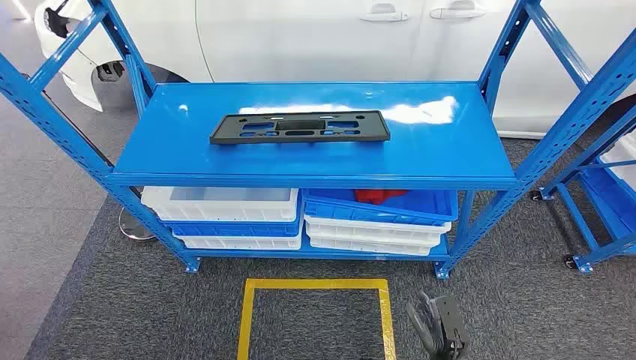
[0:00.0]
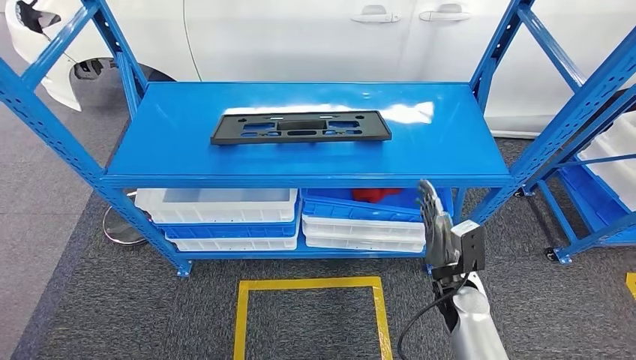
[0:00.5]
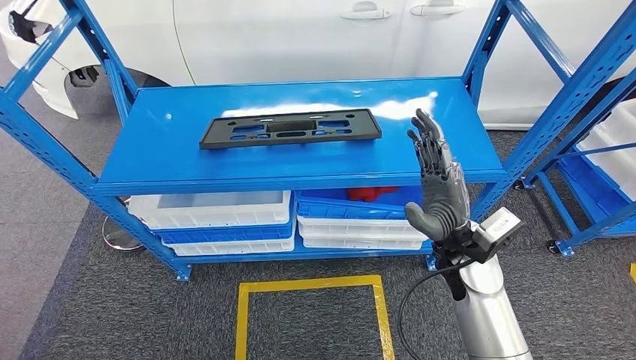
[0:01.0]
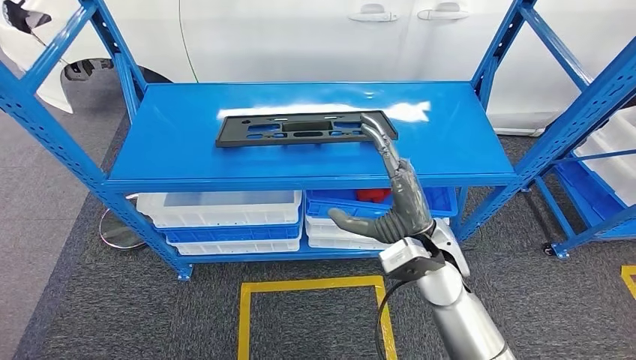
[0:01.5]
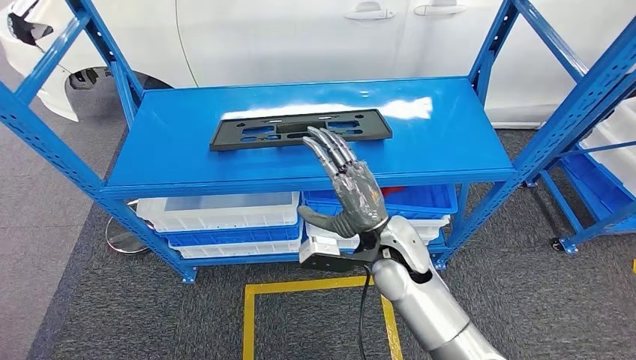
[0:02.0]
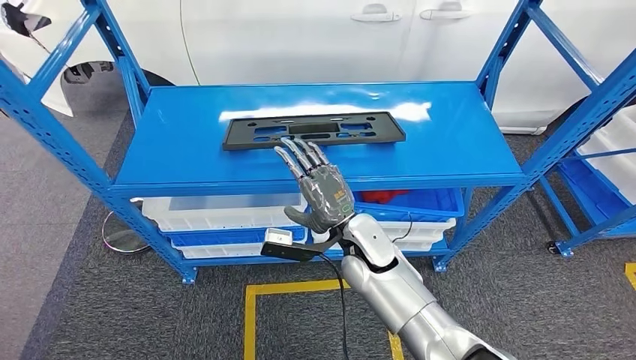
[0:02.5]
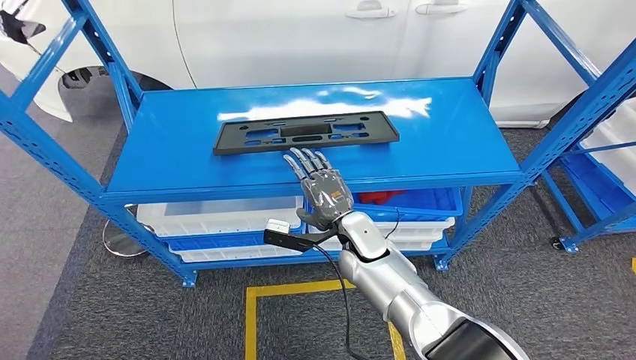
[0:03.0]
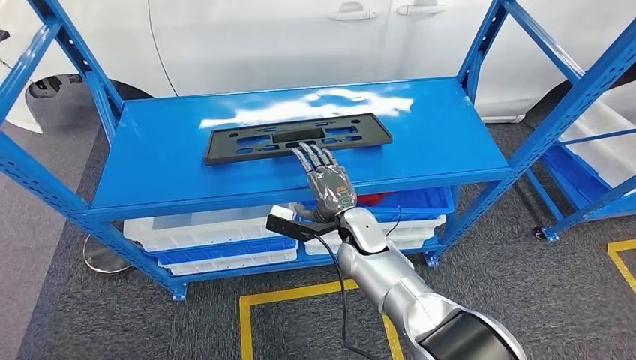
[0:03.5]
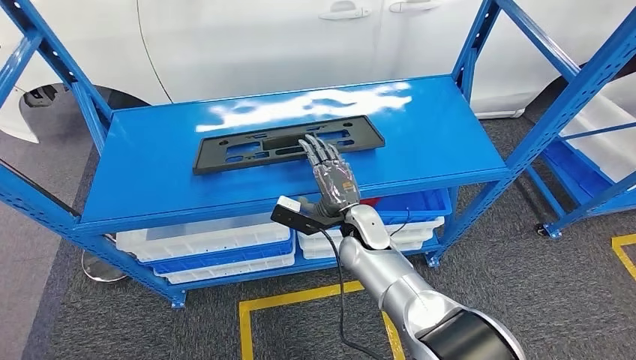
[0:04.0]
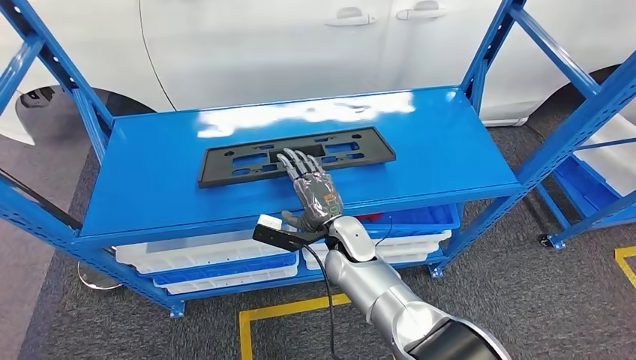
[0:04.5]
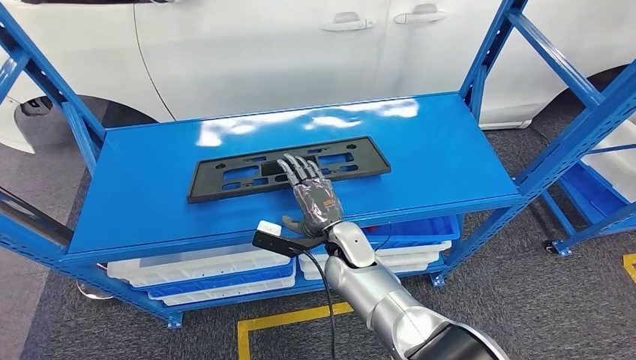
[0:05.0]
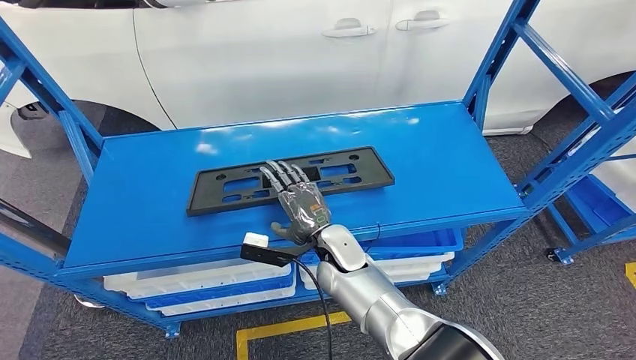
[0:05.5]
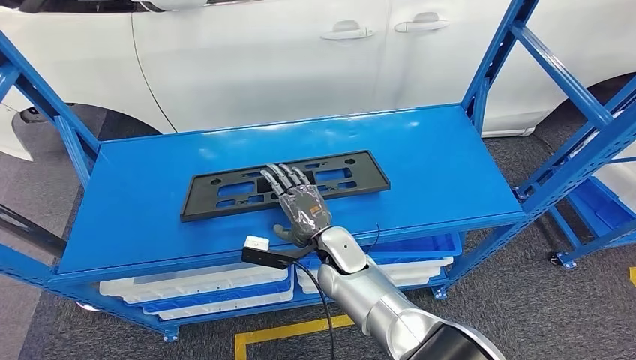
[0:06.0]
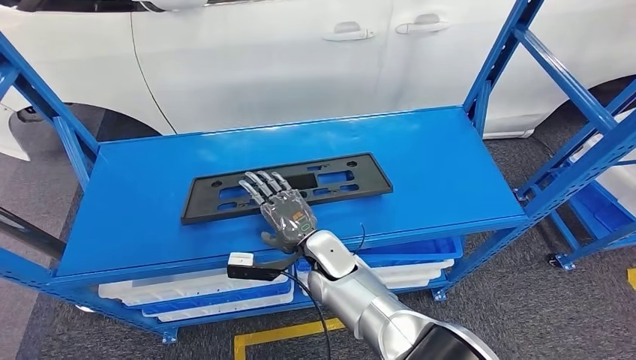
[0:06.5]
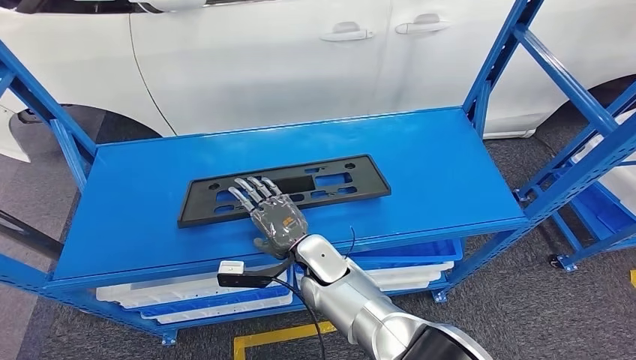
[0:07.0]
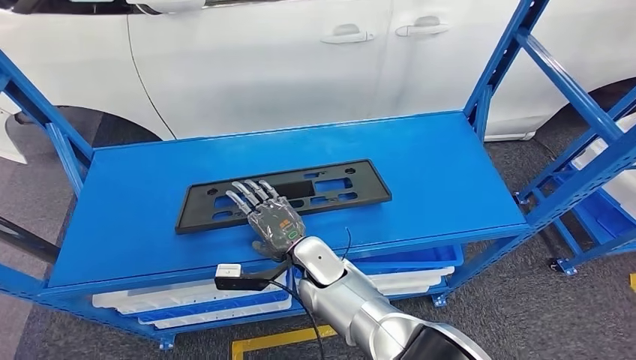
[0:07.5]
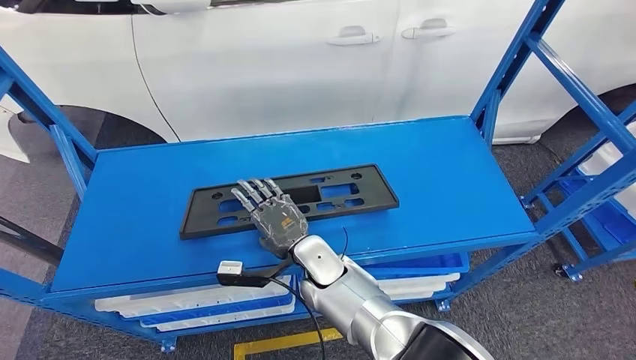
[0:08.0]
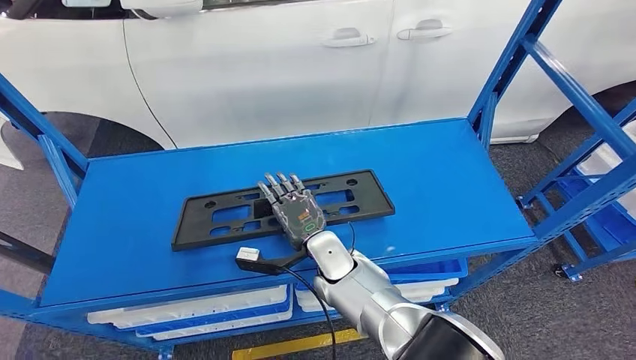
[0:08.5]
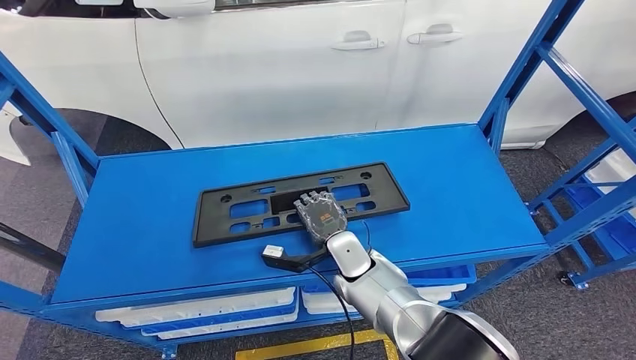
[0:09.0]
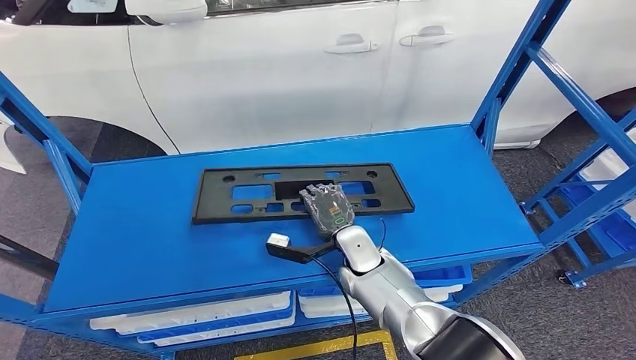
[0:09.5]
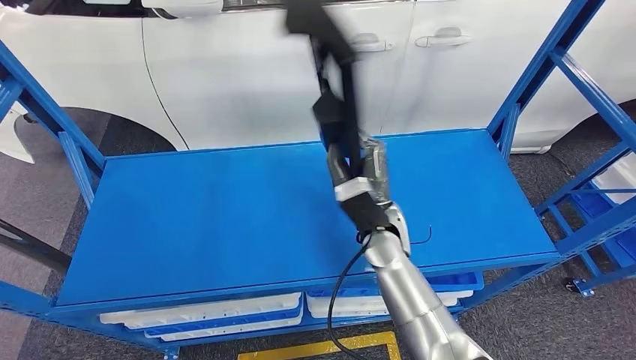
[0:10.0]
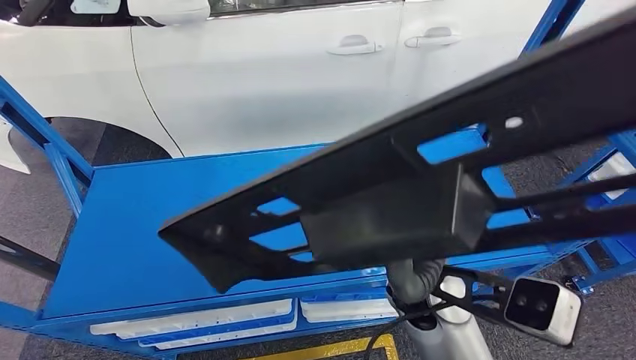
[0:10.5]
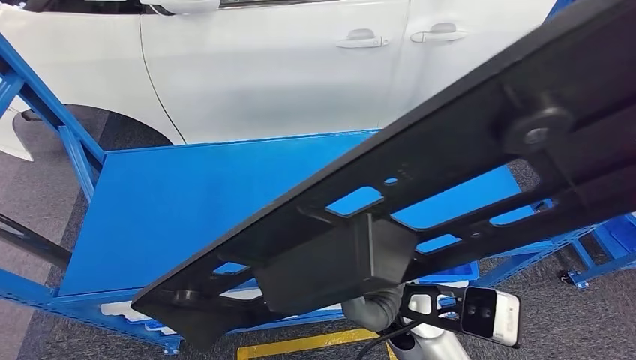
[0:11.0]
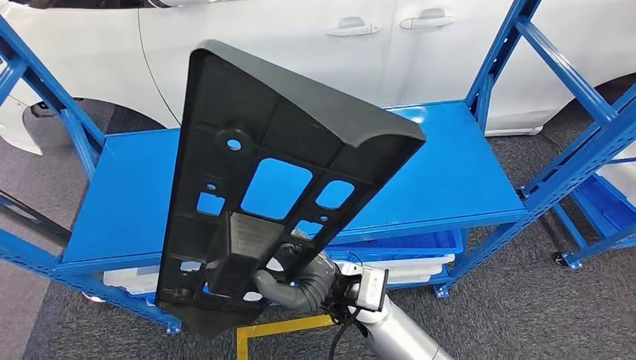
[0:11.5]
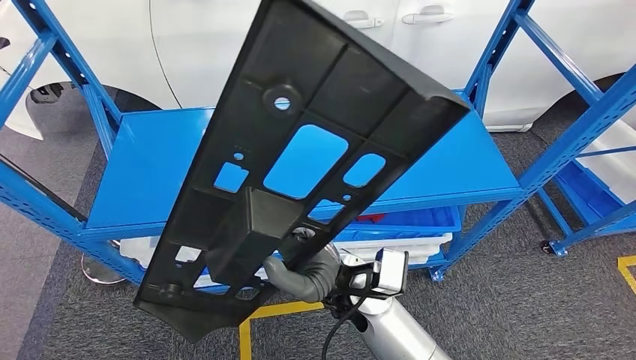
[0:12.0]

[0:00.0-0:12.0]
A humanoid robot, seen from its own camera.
Step, 0:00.0 to 0:11.0: Pick up the small parts from the shelf.

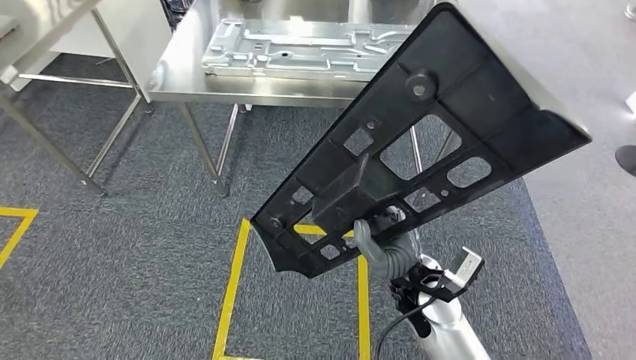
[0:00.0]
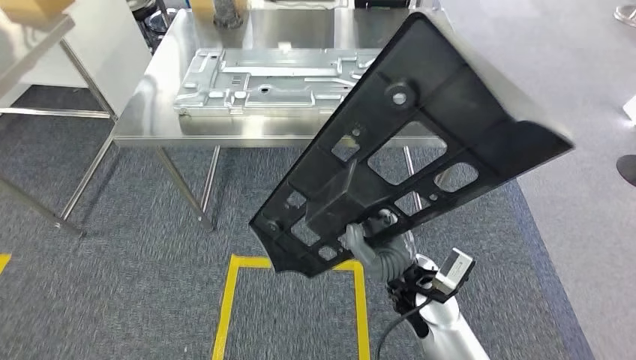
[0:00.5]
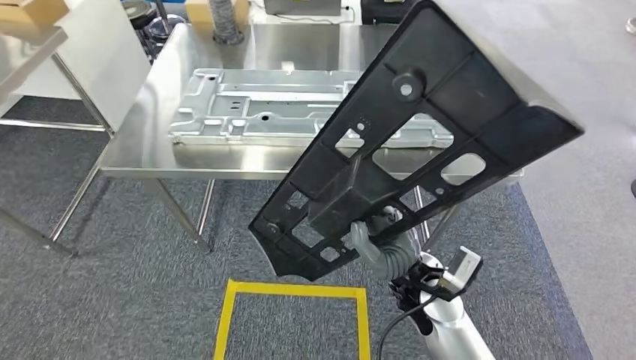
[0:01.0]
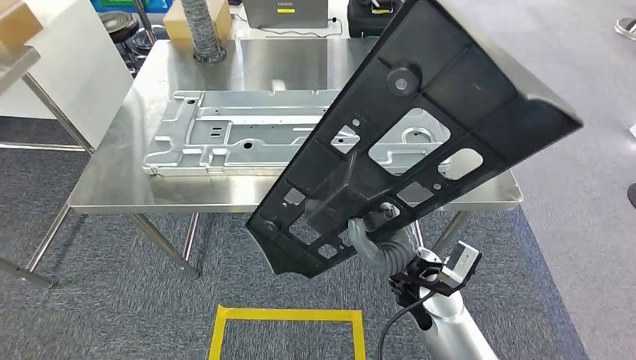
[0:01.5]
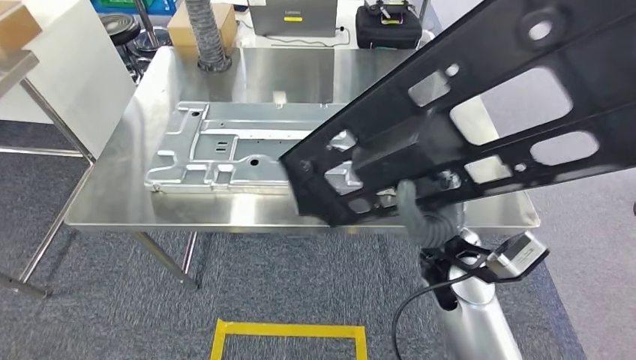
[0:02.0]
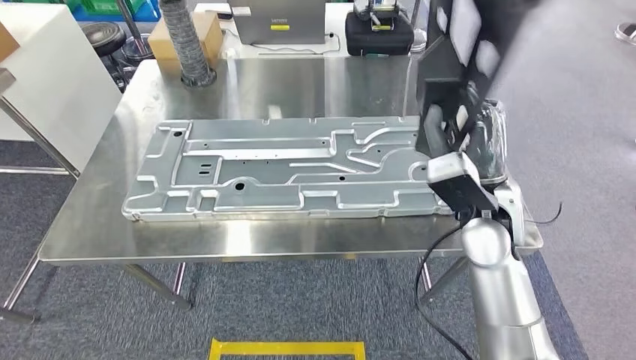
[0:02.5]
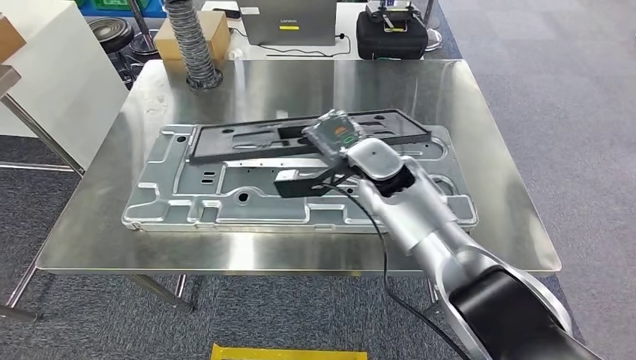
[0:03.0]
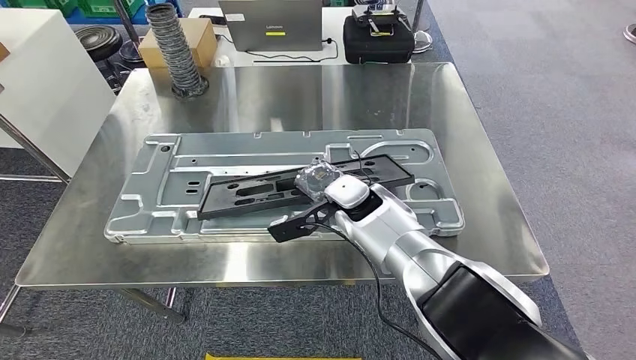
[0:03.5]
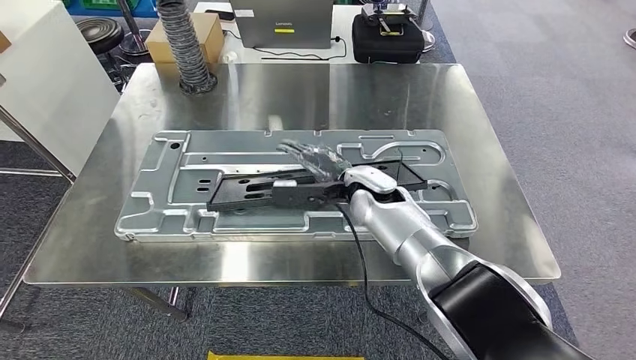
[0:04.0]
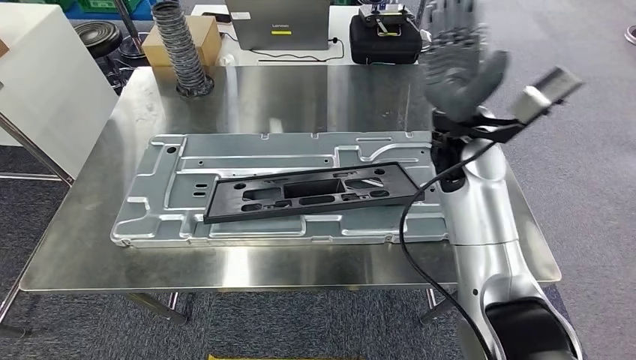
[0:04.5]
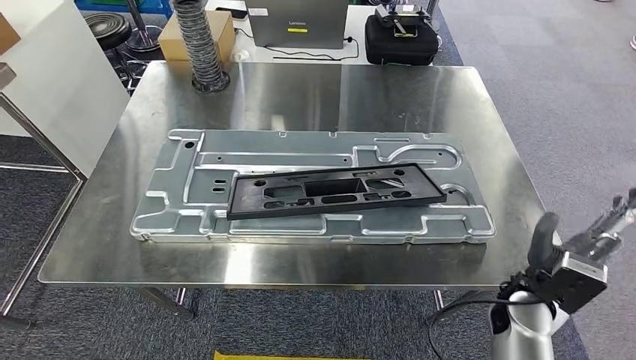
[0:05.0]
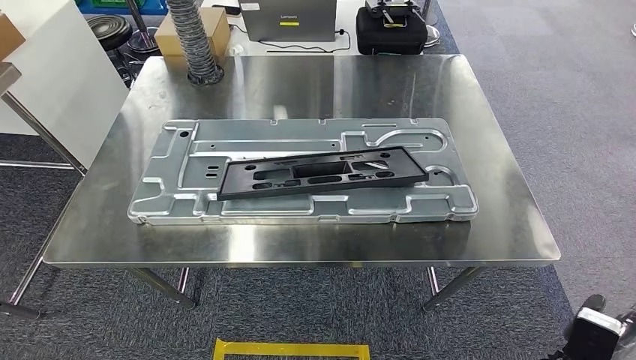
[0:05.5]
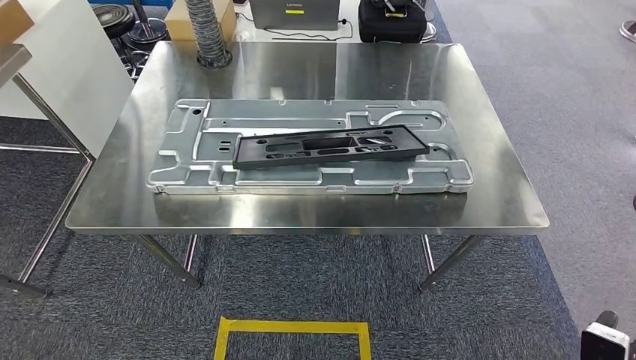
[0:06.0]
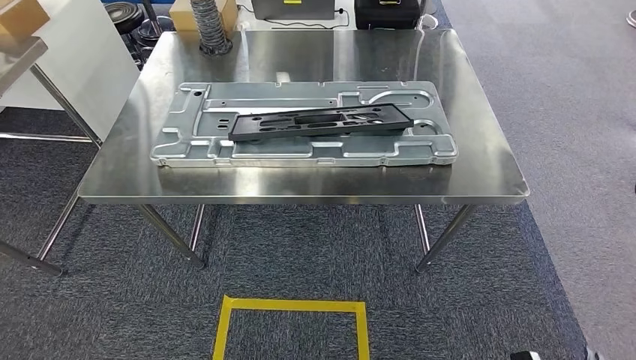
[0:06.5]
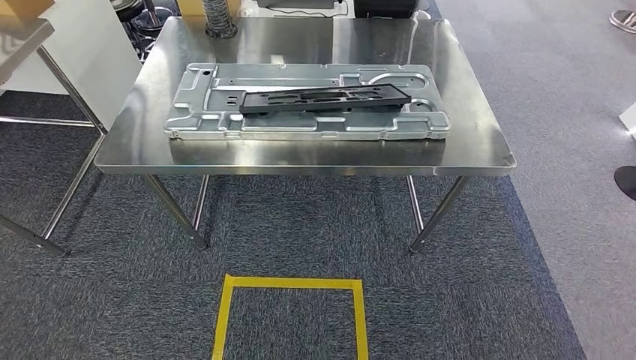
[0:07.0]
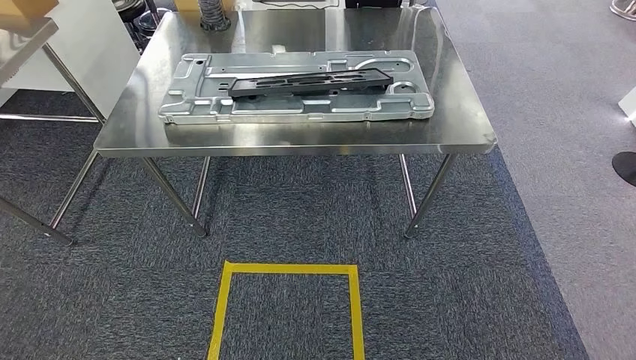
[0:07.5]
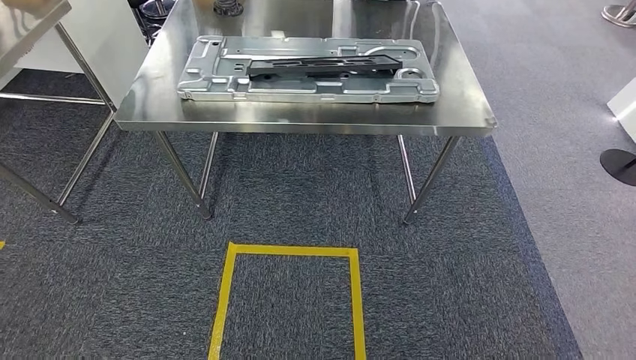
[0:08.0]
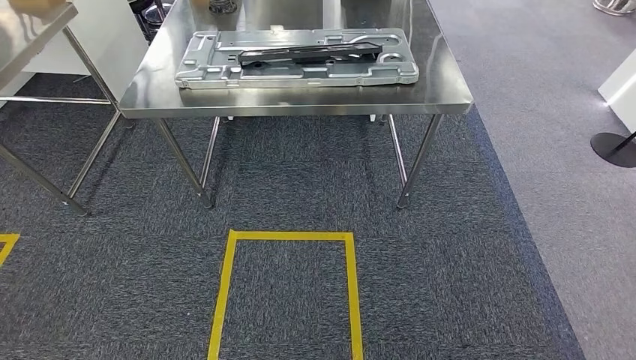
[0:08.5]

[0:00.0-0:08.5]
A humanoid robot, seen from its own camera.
Step, 0:01.0 to 0:05.0: Insert the small parts into the corresponding holes on the workbench.
Step, 0:05.5 to 0:08.5: Move to the initial position at the workbench.
